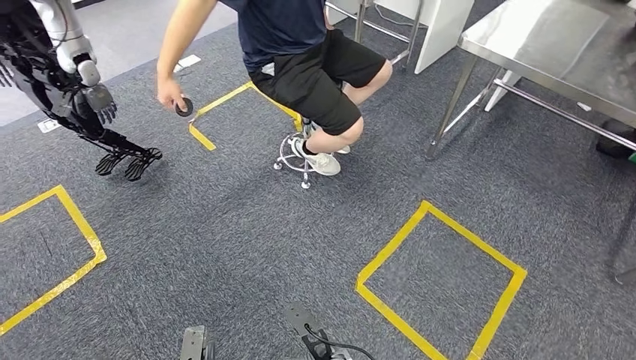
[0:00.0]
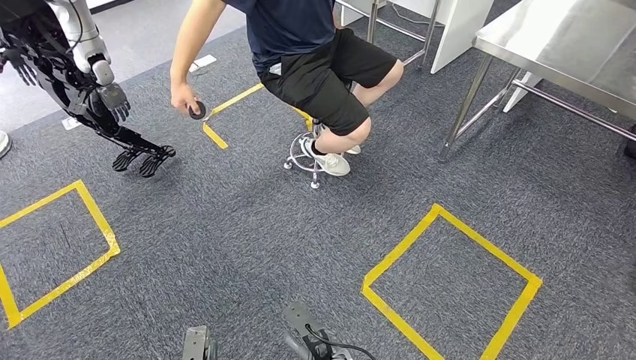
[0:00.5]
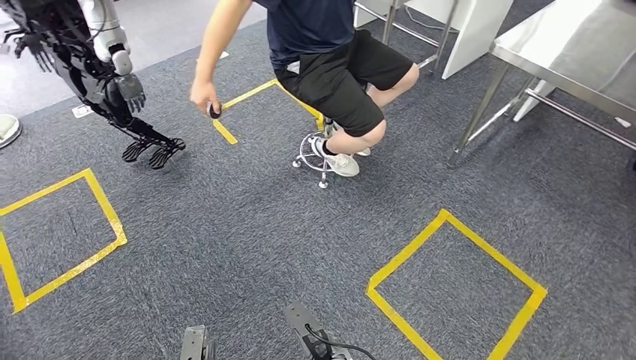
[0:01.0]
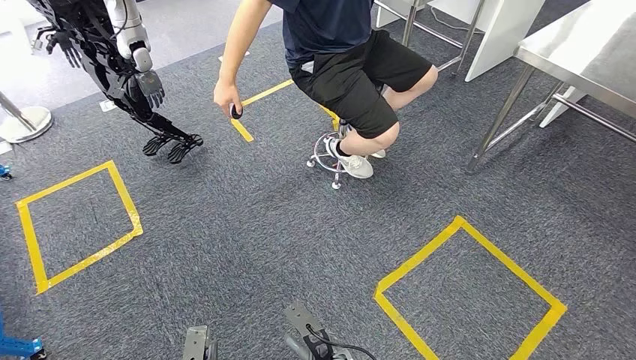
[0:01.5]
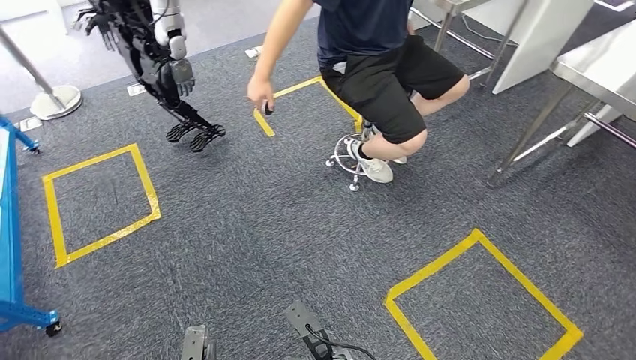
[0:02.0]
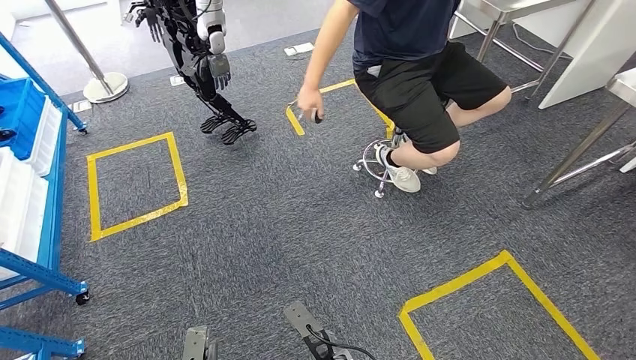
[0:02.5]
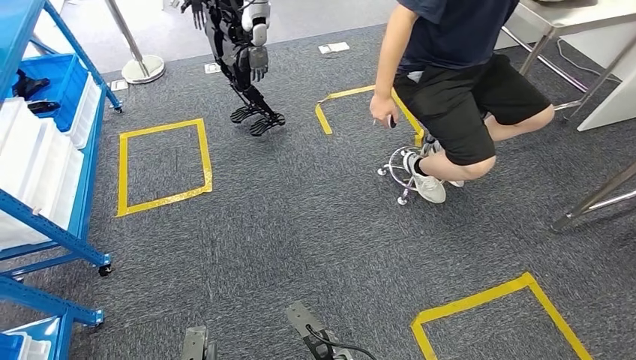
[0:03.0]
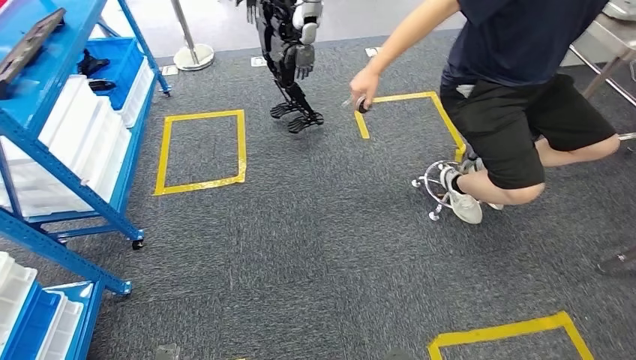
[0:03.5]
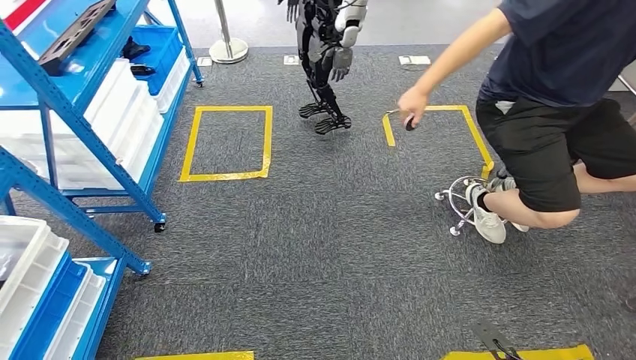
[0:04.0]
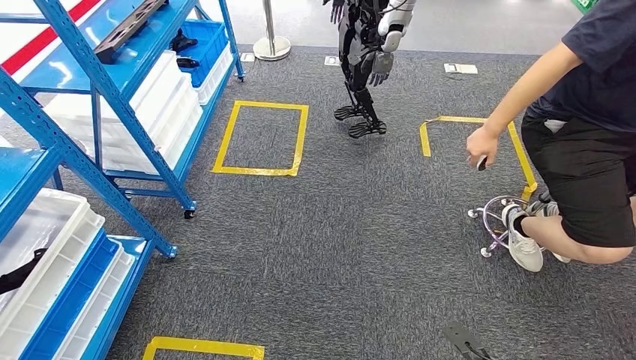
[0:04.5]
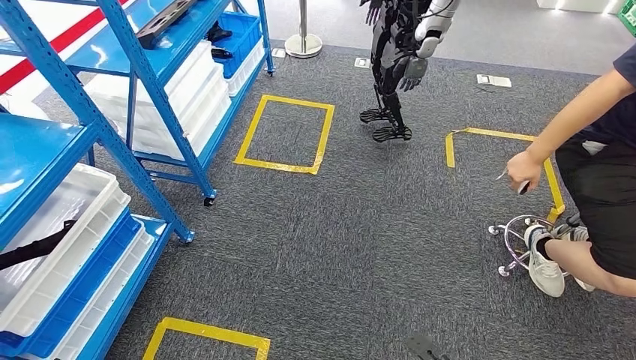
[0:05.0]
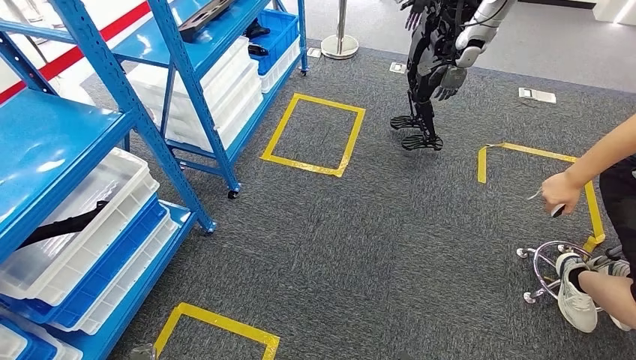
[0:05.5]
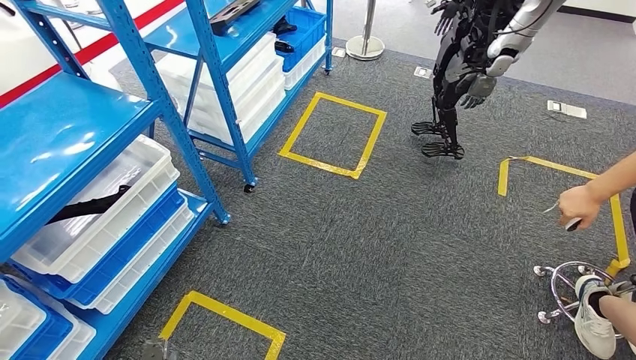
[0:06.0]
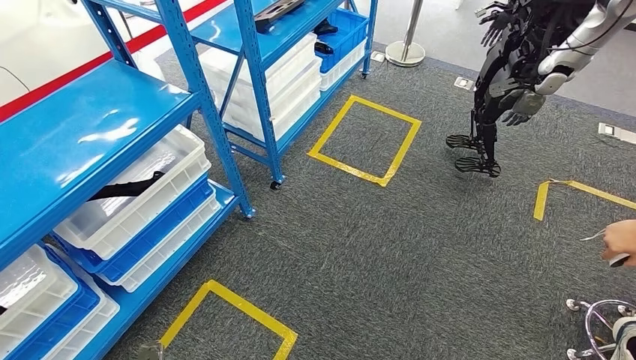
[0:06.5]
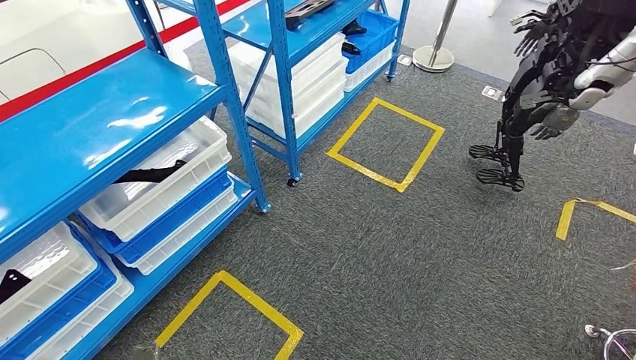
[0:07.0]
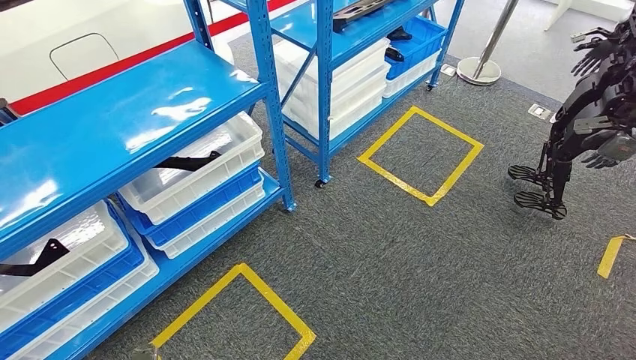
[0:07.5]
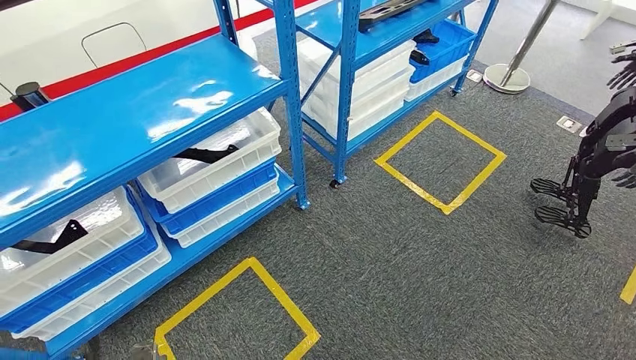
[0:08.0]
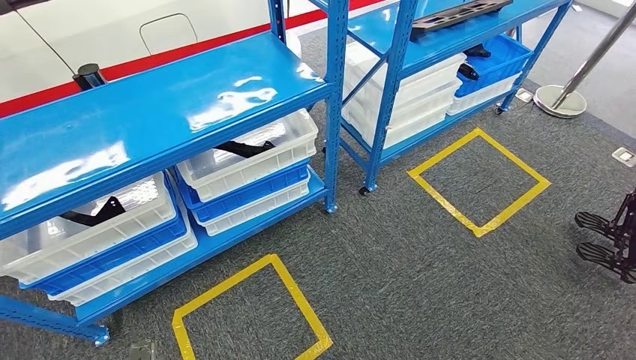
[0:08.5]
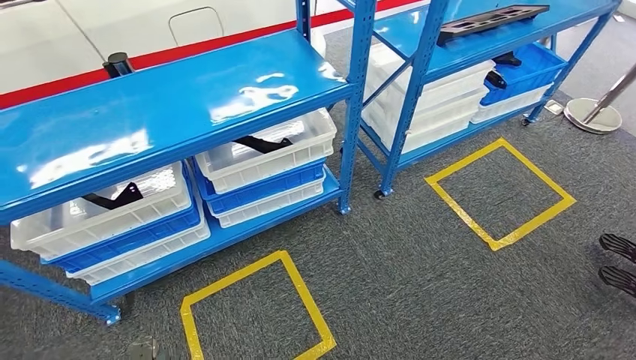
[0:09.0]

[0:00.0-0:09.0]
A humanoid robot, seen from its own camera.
Step, 0:00.0 to 0:09.0: Return to the initial position at the shelf.

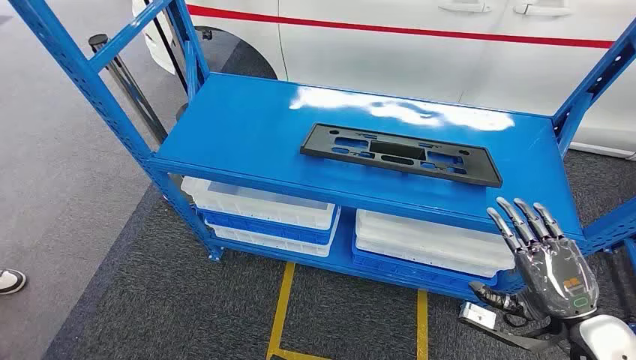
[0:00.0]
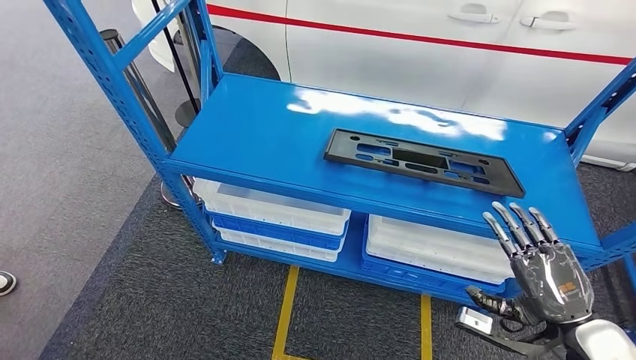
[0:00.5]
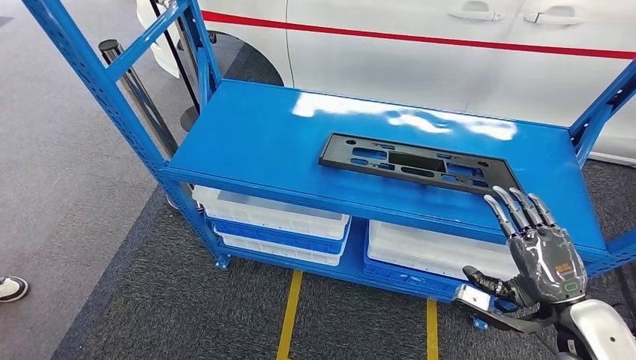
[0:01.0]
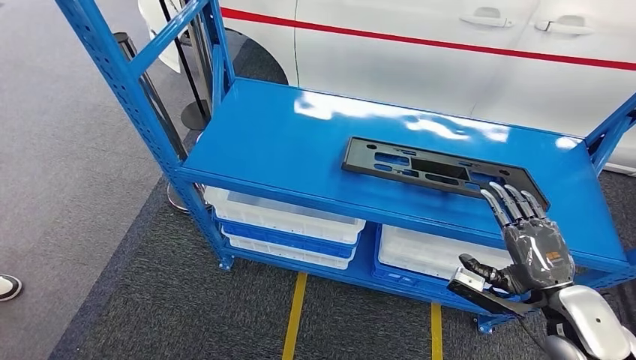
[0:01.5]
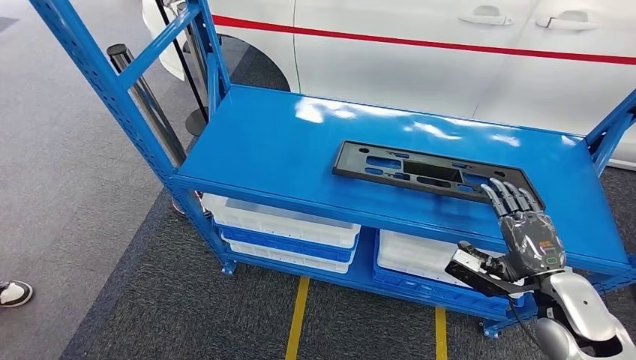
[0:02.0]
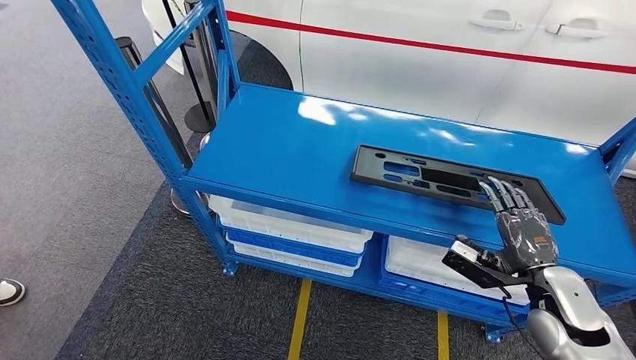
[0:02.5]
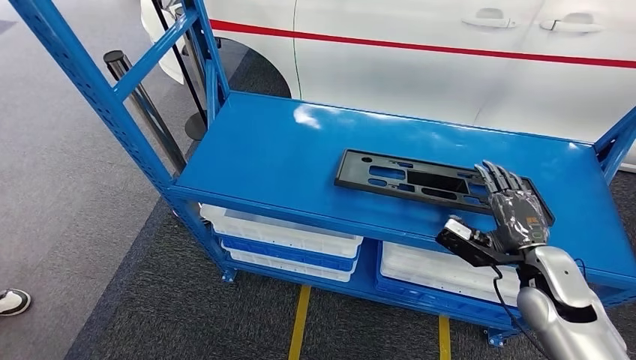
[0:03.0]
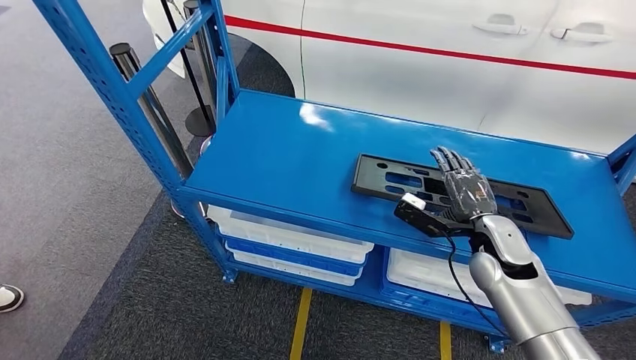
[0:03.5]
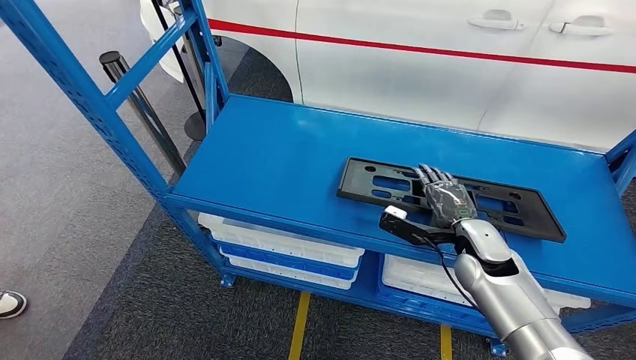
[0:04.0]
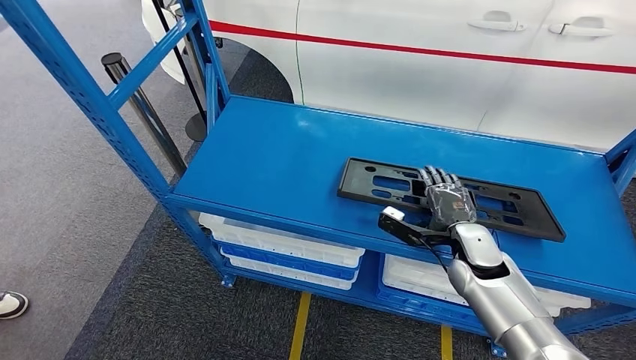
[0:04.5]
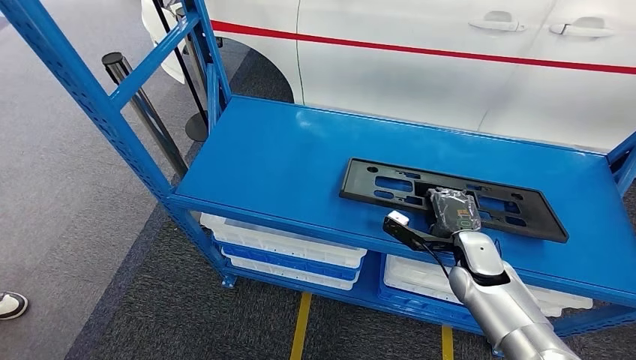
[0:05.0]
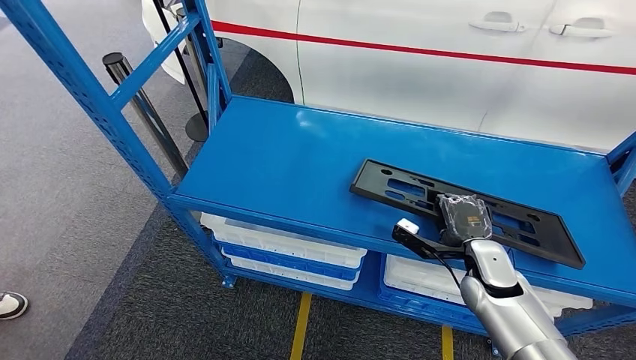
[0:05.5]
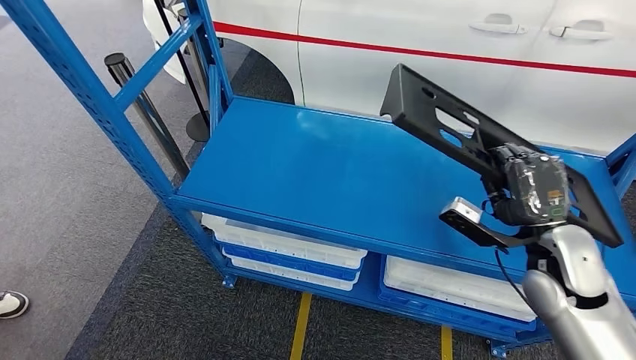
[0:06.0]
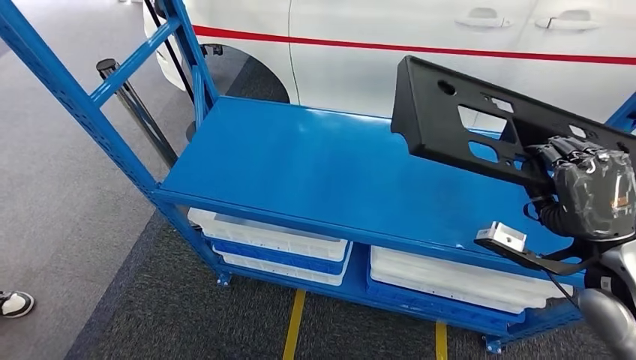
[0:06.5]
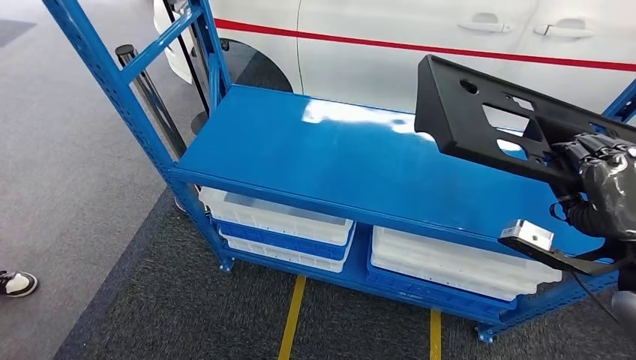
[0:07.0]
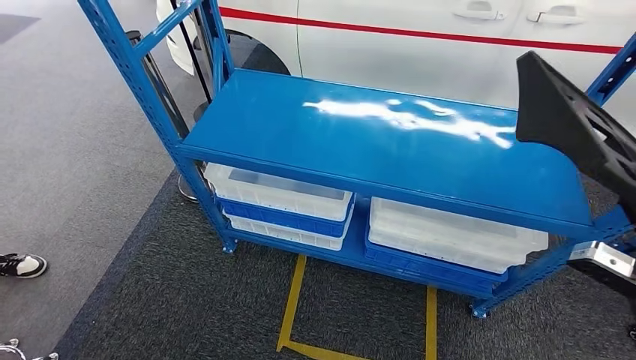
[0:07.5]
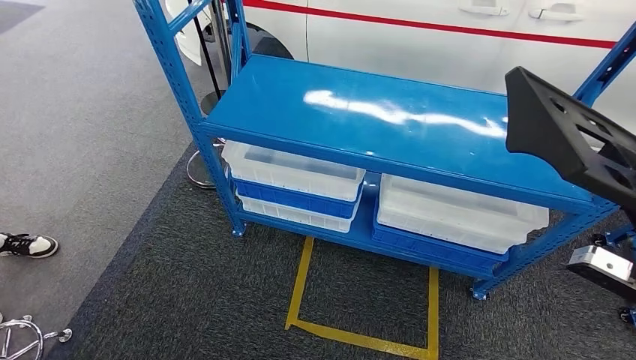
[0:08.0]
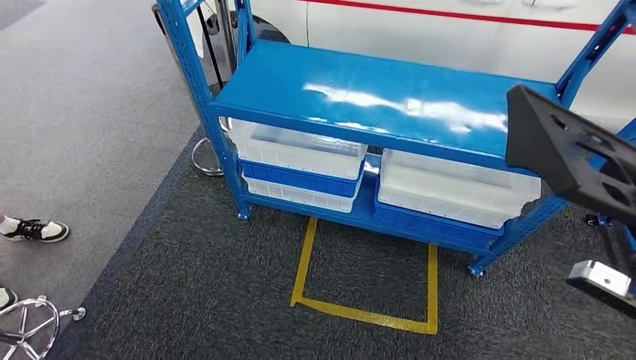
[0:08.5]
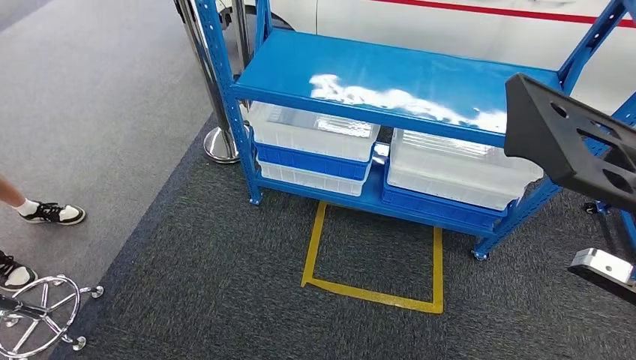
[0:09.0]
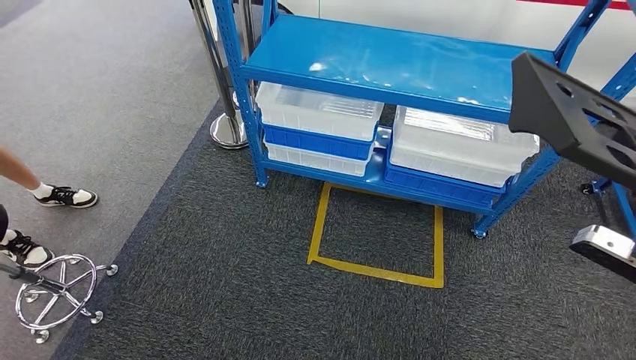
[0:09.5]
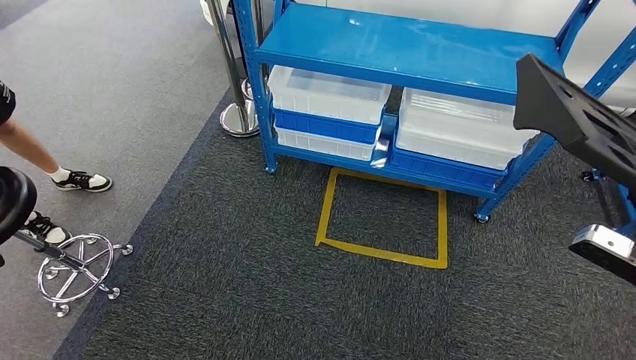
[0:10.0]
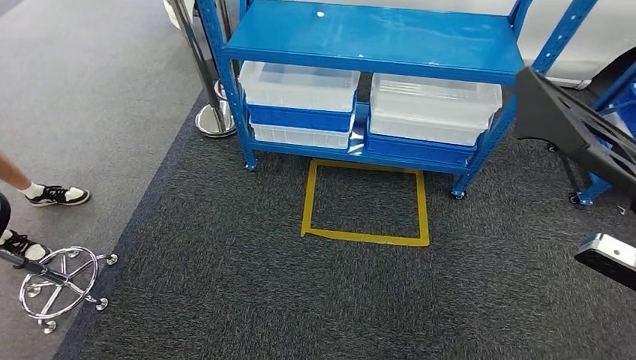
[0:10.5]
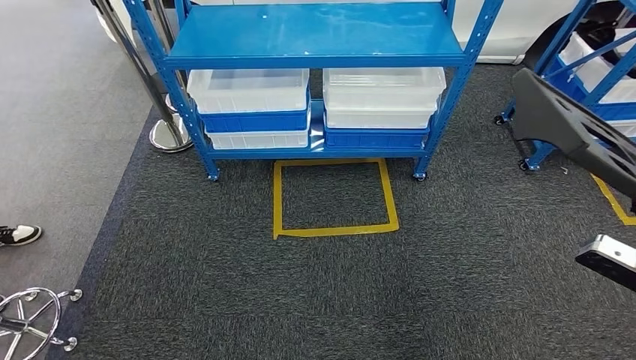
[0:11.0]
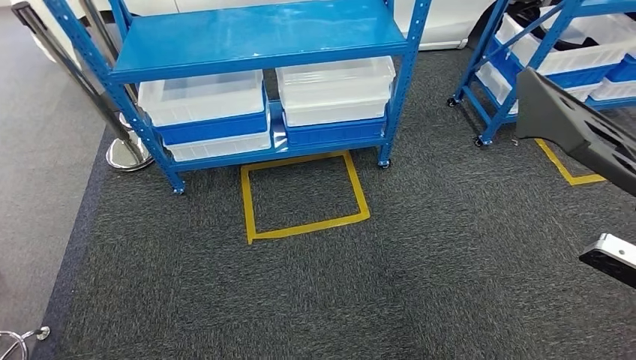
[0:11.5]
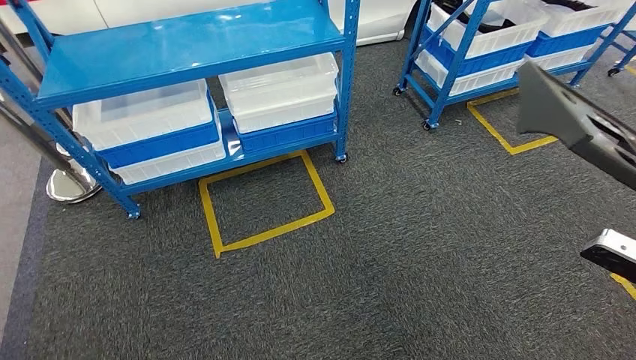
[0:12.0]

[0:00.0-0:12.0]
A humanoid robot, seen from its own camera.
Step, 0:00.0 to 0:05.5: Pick up the large material from the shelf.
